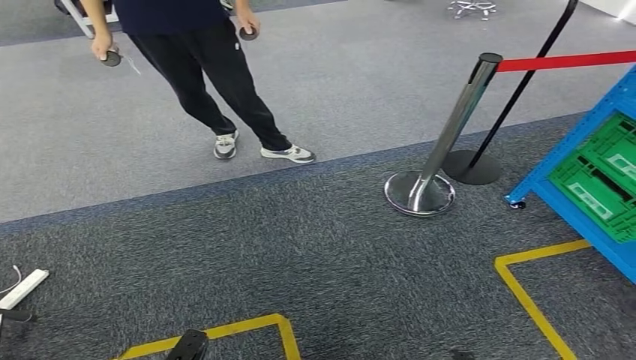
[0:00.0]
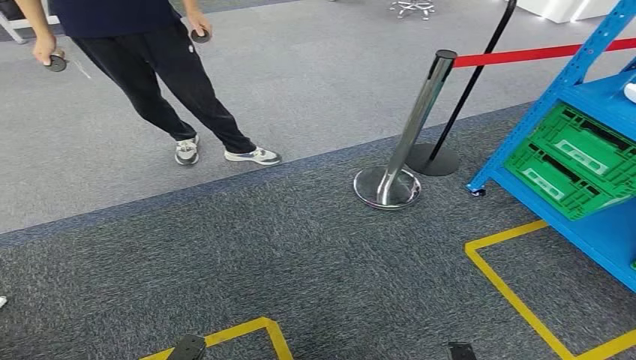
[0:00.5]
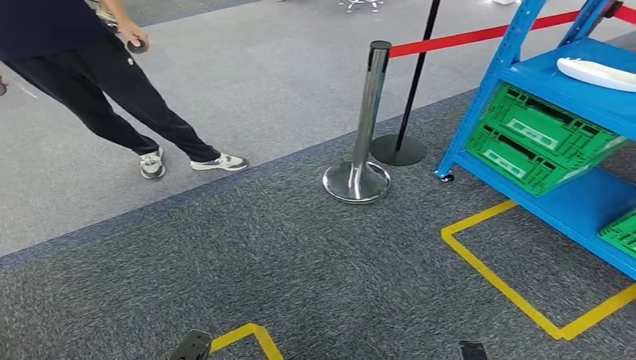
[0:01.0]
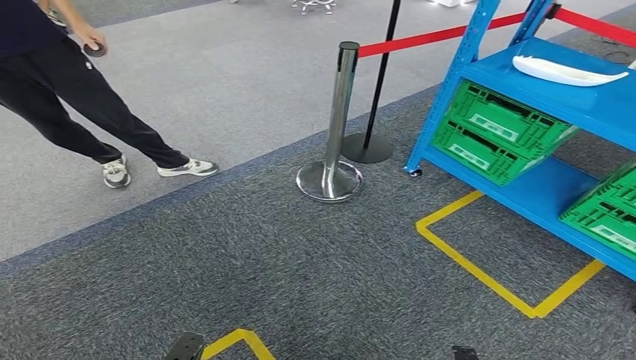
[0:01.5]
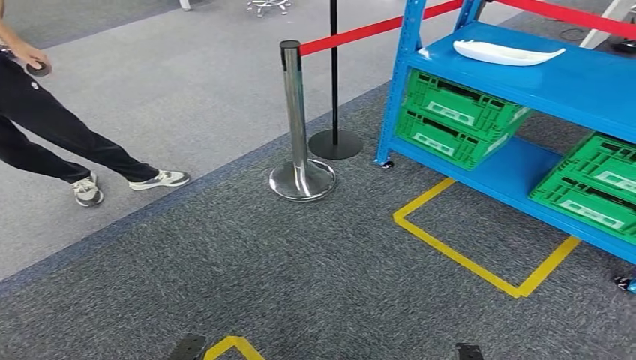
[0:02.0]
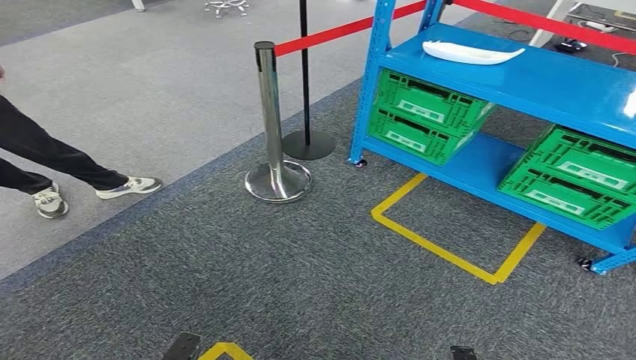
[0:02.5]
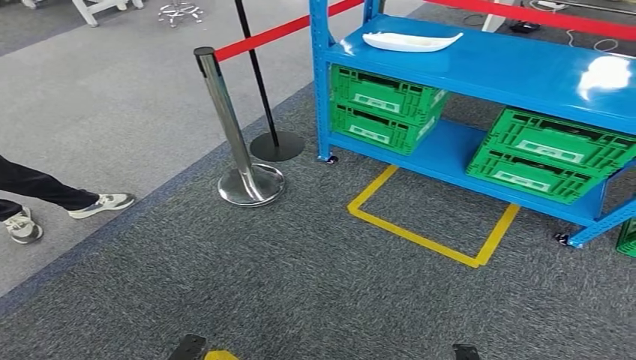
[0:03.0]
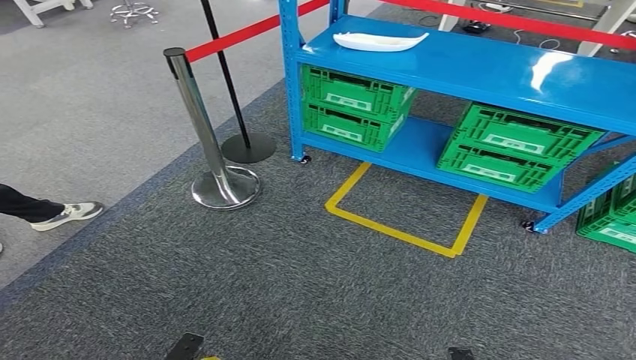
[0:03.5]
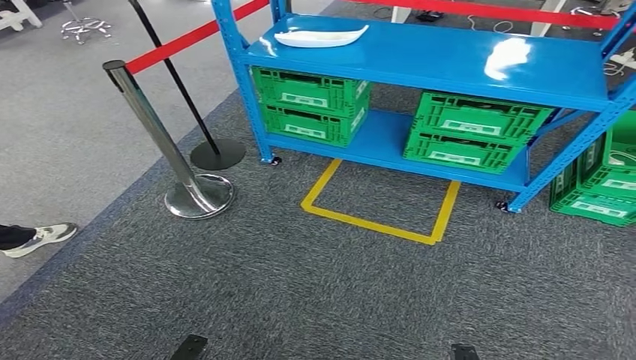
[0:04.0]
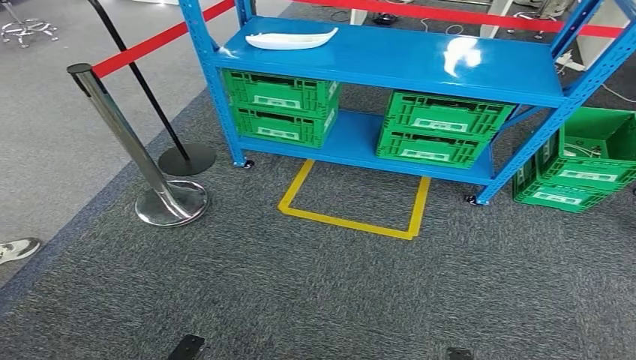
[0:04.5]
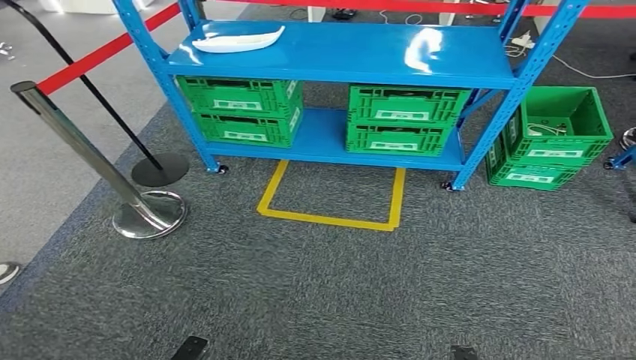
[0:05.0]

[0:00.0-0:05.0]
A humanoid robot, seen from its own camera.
Step, 0:00.0 to 0:05.0: Move to the initial position at the workbench.
